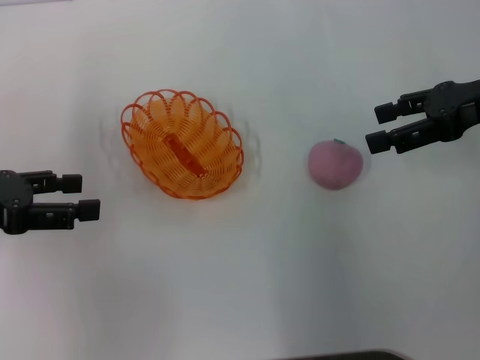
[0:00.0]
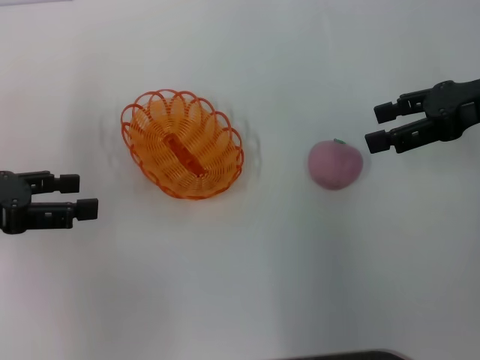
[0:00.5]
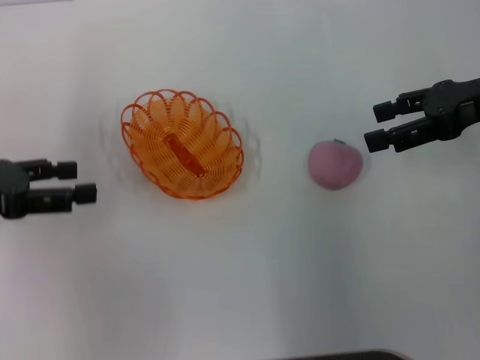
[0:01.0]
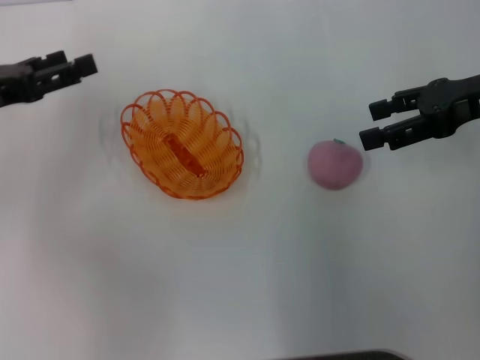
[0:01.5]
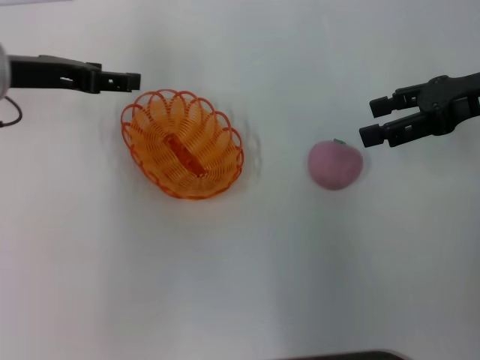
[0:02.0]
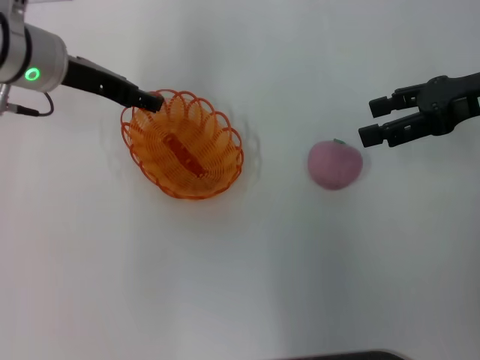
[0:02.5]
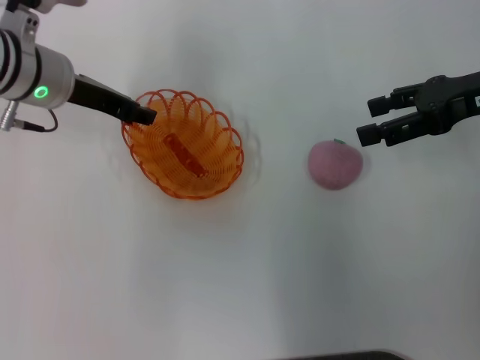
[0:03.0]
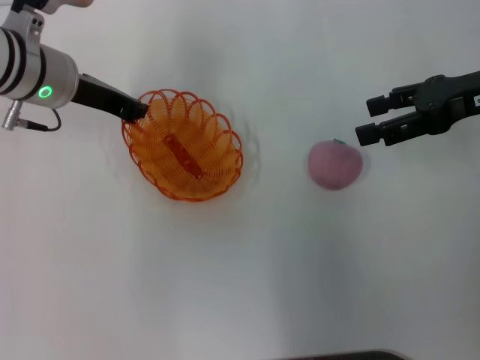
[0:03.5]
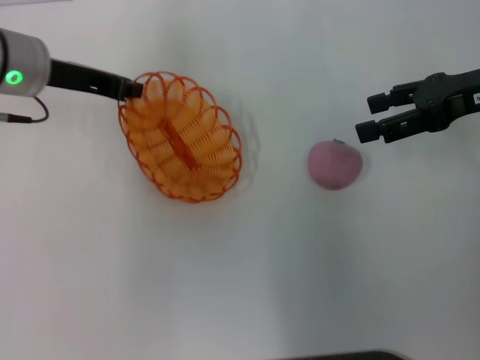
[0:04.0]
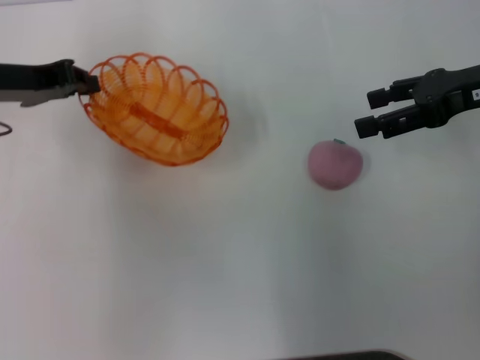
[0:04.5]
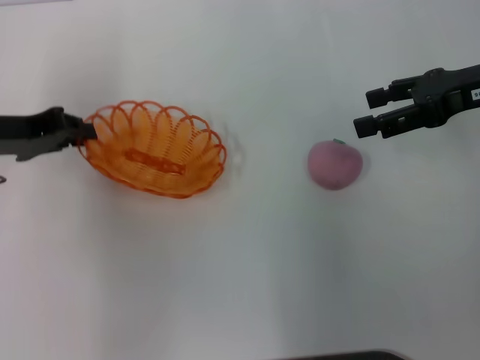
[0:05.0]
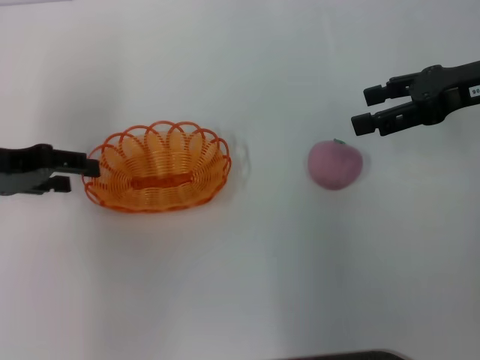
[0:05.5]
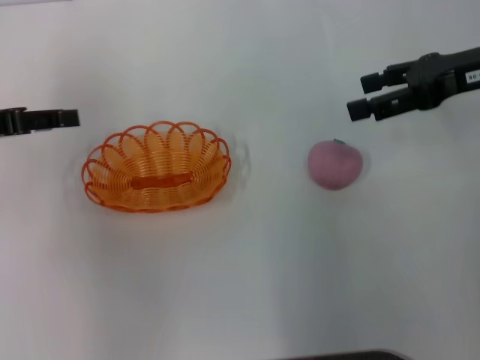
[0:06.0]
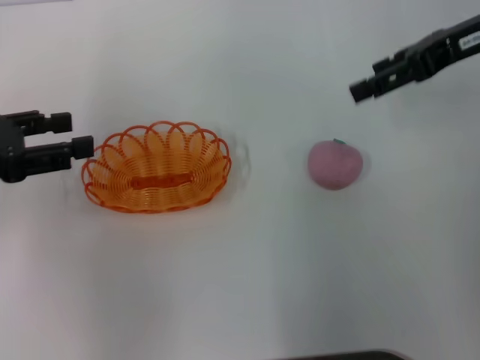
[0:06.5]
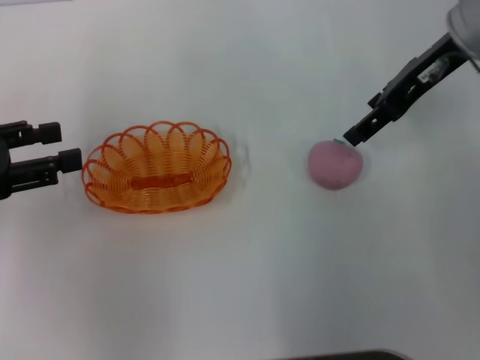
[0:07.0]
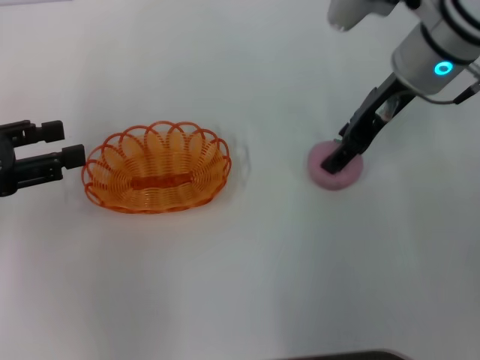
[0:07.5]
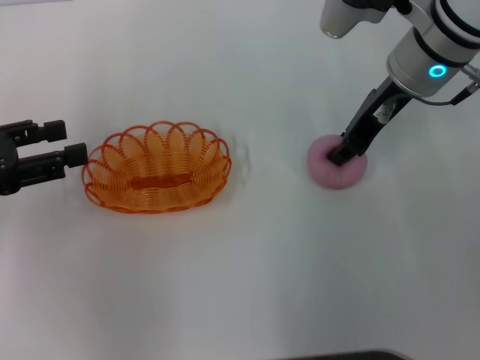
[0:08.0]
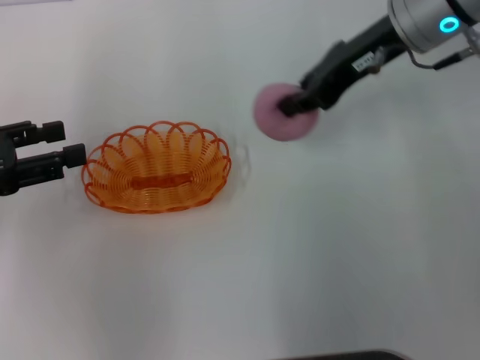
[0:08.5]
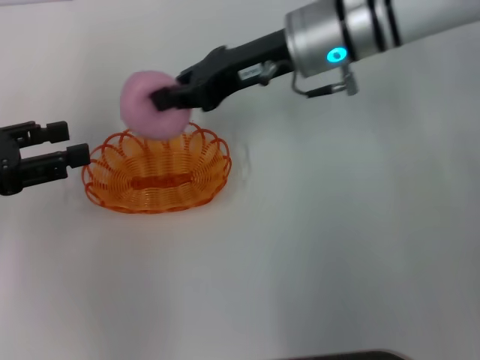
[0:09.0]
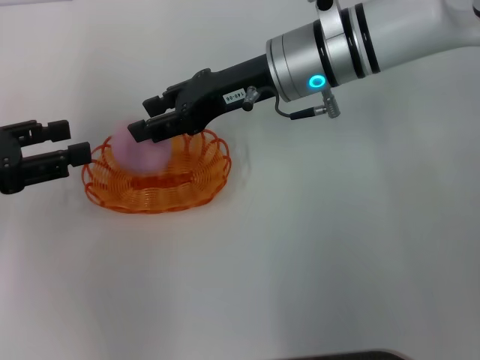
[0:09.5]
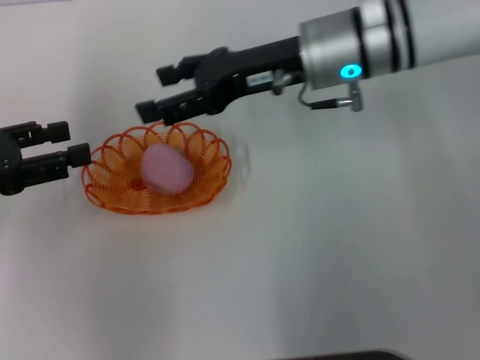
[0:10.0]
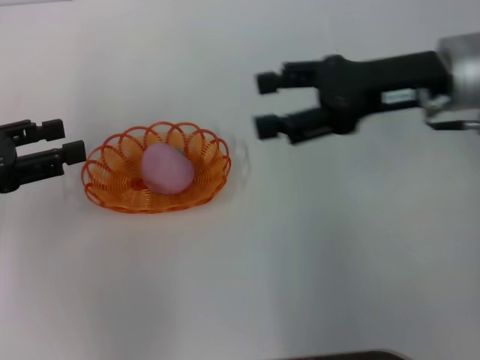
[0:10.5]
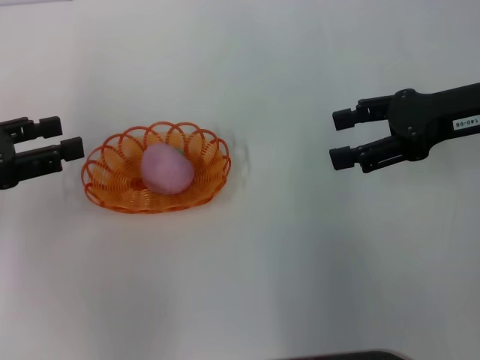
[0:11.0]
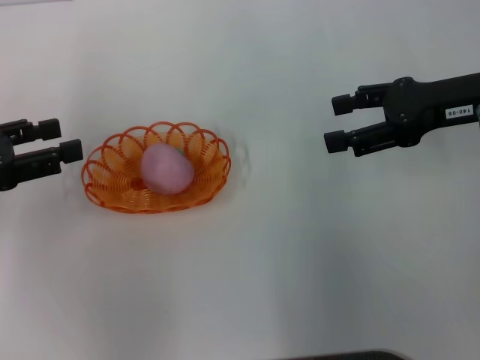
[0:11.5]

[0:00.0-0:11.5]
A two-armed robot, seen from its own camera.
Step, 0:00.0 to 0:04.5: Pick up the basket with the left gripper.
Step, 0:05.0 to 0:06.0: Place the basket in the center of view with the left gripper.
Step, 0:06.5 to 0:08.0: Pick up the peach with the right gripper.
Step, 0:09.0 to 0:10.0: Place the peach into the basket with the right gripper.
0:00.0 to 0:02.0: The left gripper is displaced forward and to the right by roughly 15 cm.
0:02.0 to 0:04.0: The left gripper closes.
0:04.0 to 0:06.0: The left gripper is displaced to the left and backward by approximately 15 cm, and opens up.
0:06.0 to 0:07.5: The left gripper goes approximately 5 cm backward, while the right gripper heads to the left, covering about 10 cm.
0:07.5 to 0:09.5: The right gripper shifts roughly 10 cm to the left, and closes its fingers.
0:09.5 to 0:11.5: The right gripper heads to the right, covering approximately 20 cm, and opens up.
